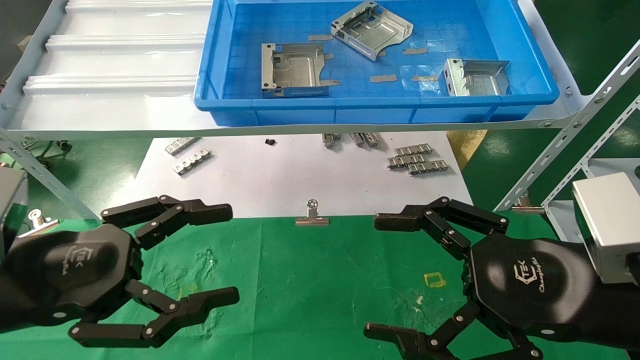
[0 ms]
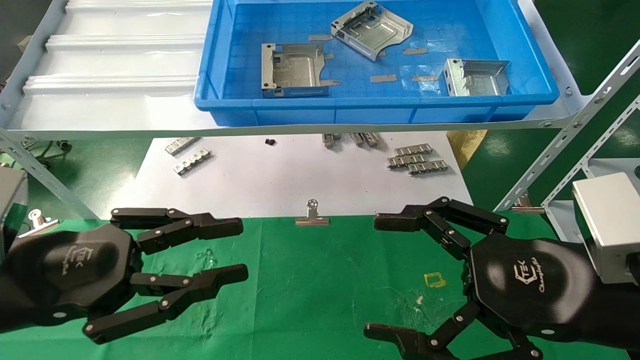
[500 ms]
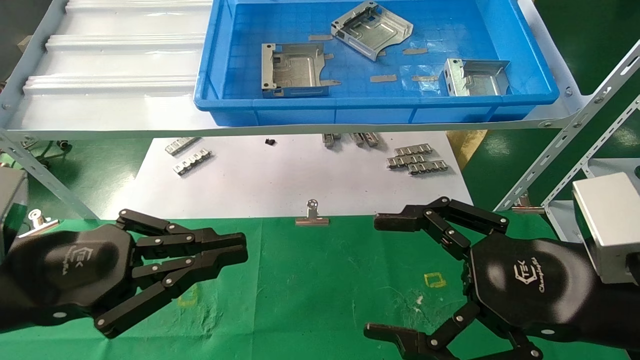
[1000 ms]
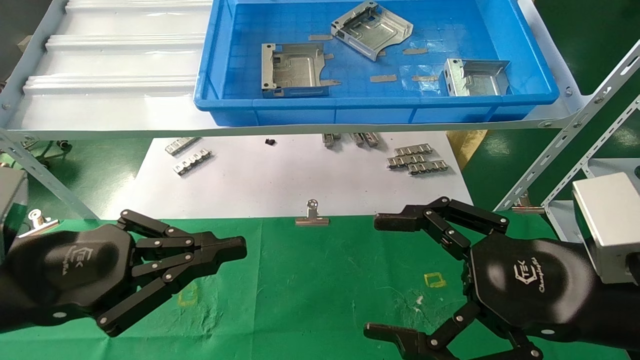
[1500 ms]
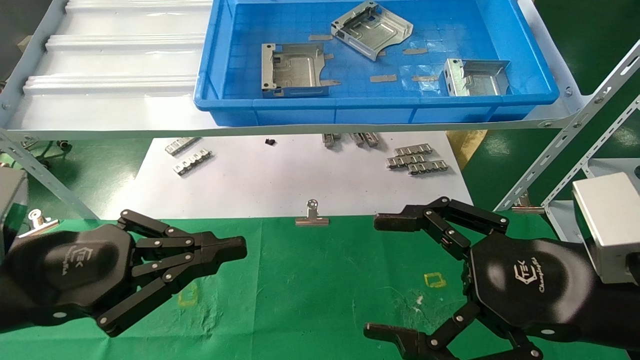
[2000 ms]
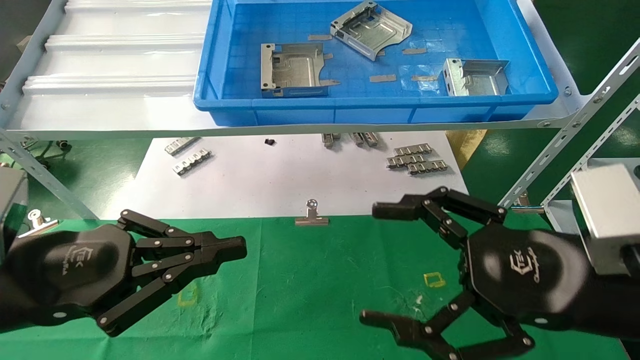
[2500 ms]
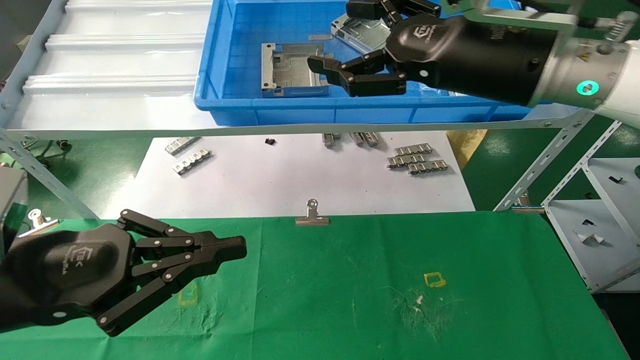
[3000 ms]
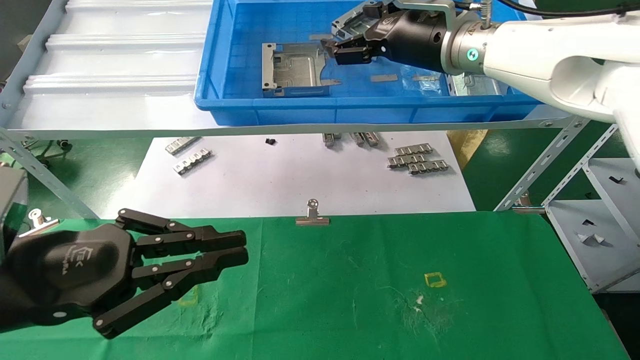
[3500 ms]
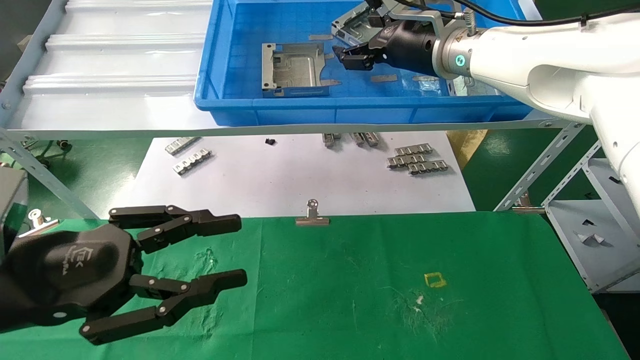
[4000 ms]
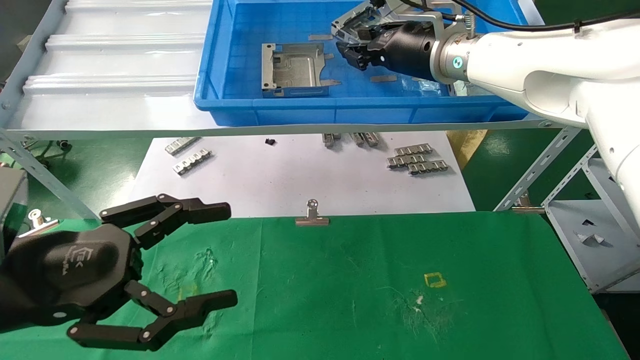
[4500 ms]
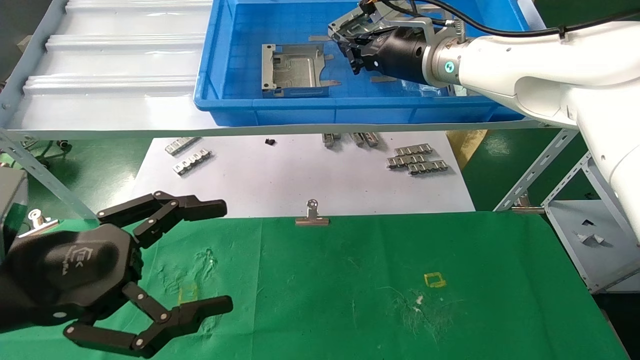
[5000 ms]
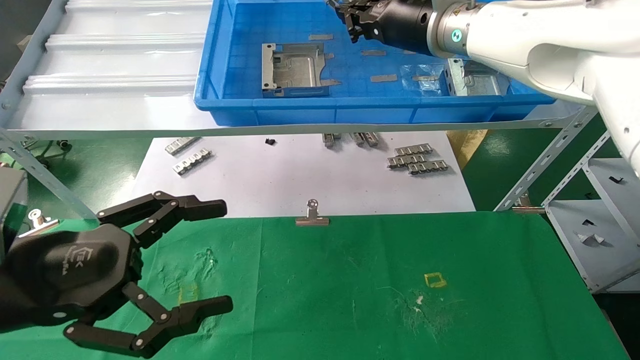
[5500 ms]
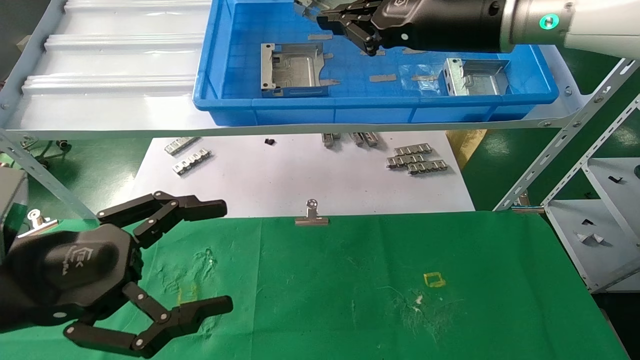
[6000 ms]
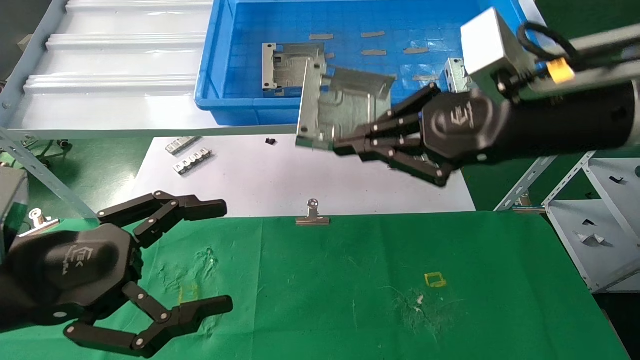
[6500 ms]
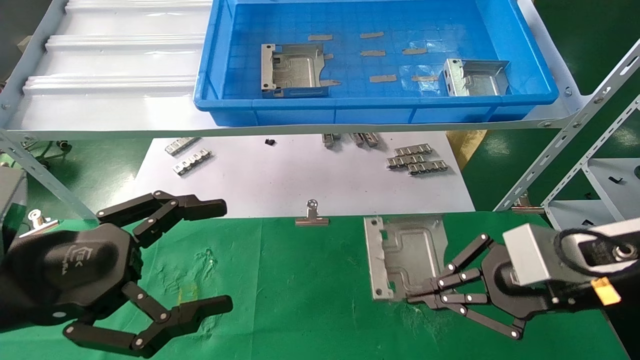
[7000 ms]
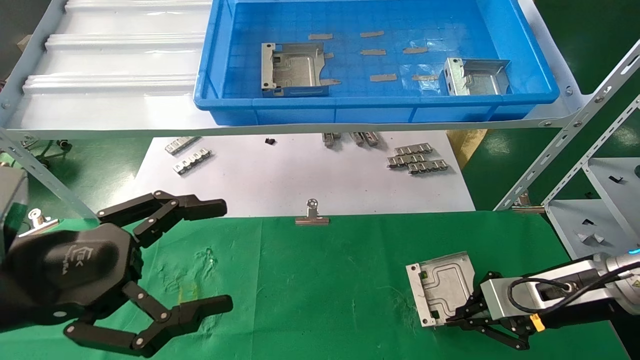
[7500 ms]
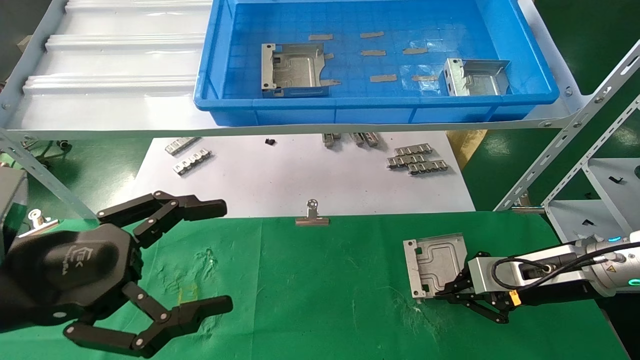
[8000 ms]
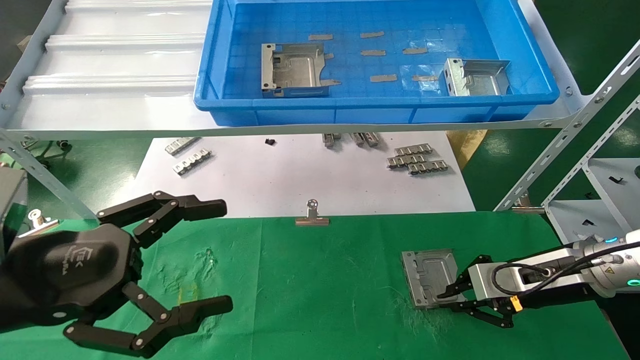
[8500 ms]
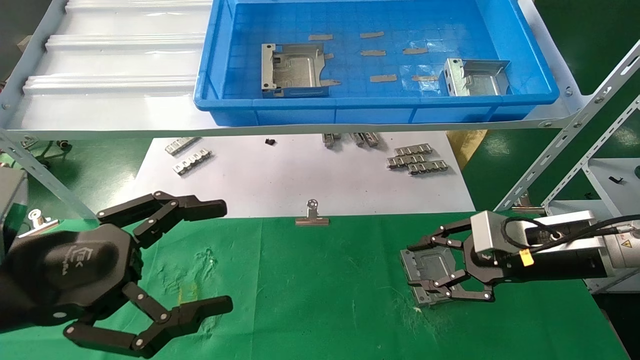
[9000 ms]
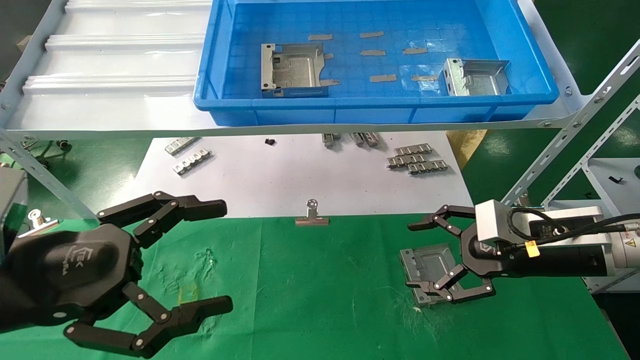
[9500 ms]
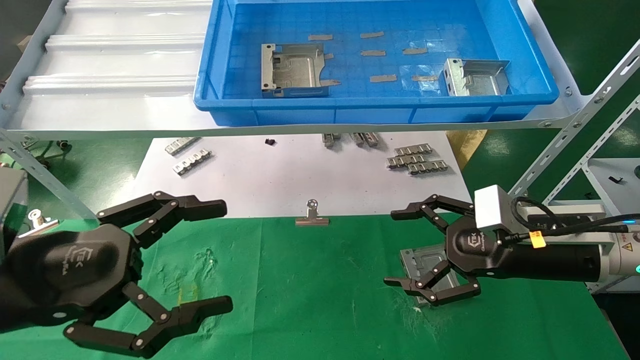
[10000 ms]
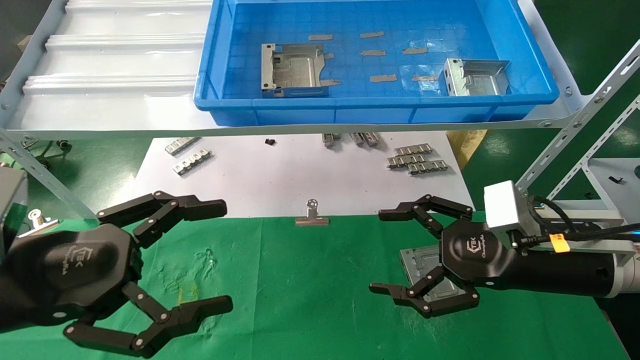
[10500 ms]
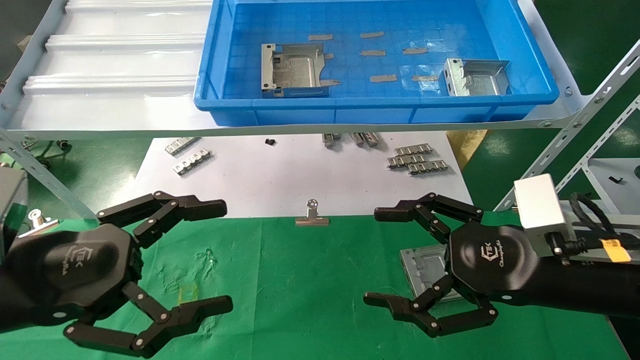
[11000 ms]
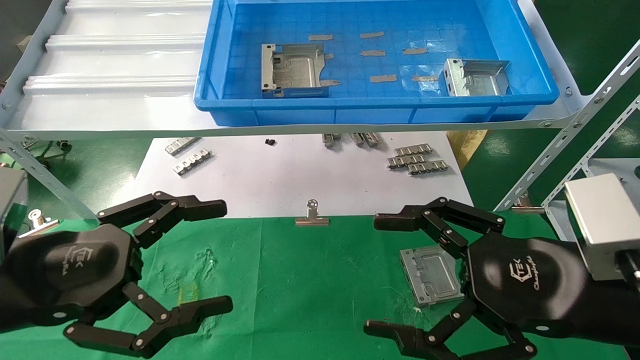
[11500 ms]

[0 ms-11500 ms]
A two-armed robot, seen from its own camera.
Task of the whole recording: use the mechanical arm to pick up the parts and place them on the table.
Step, 1000 ms to 4500 ms: Pick up the hard drive bracket from the feeding area.
Step, 5000 ms to 8500 ms: Place the hard drive bracket into the box.
0 ms to 2000 ms: The left gripper closes its fingers.
2000 ms to 4000 ms: The right gripper travels forward and upward by about 30 cm.
4000 ms to 6000 ms: The right gripper is displaced backward by about 10 cm, and closes up. Meanwhile the left gripper opens its fingers.
6000 ms to 7500 ms: The right gripper shifts roughly 30 cm downward and to the right.
7500 ms to 9500 ms: The right gripper opens.
9500 ms to 11500 ms: The right gripper goes roughly 15 cm backward and to the left.
